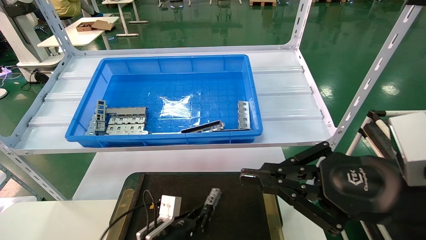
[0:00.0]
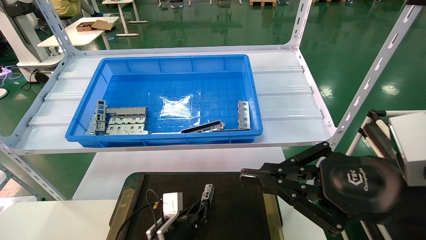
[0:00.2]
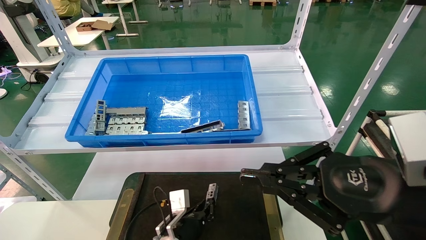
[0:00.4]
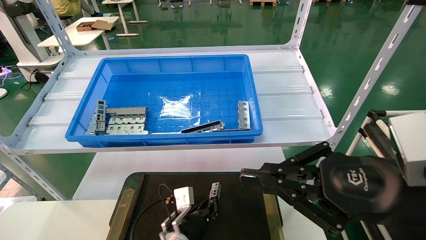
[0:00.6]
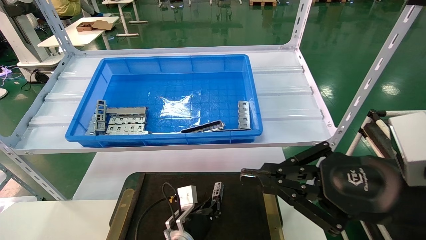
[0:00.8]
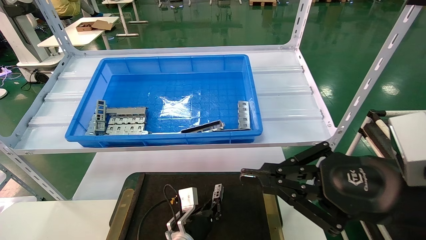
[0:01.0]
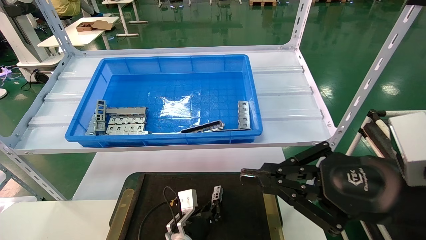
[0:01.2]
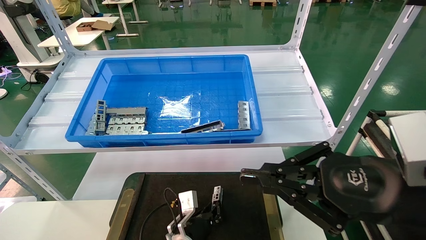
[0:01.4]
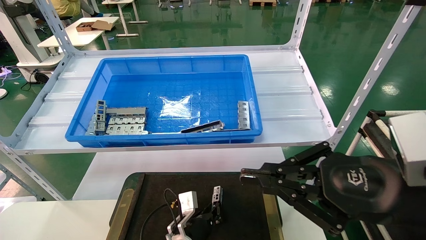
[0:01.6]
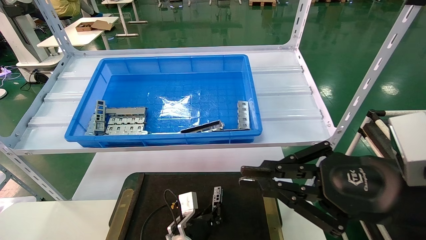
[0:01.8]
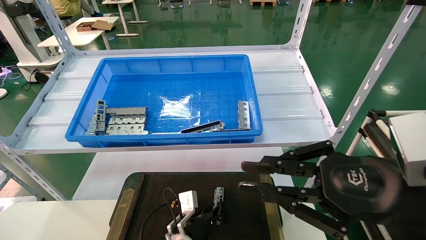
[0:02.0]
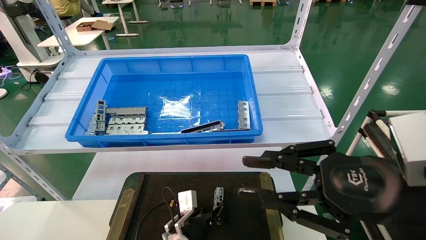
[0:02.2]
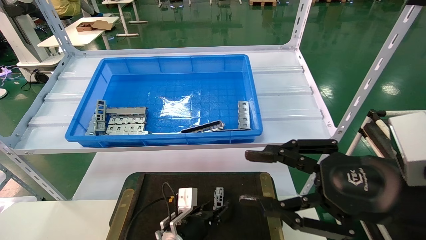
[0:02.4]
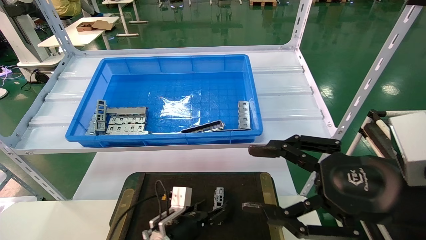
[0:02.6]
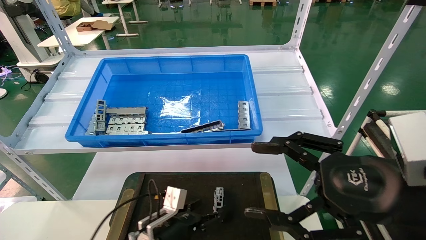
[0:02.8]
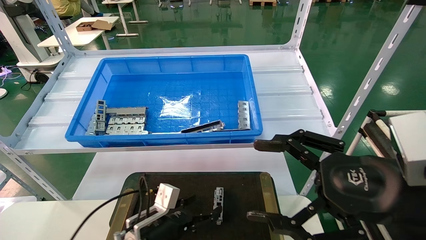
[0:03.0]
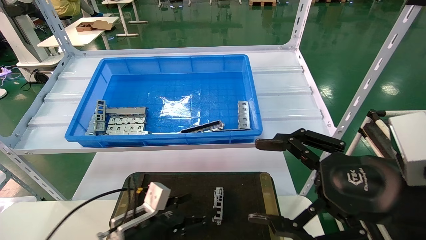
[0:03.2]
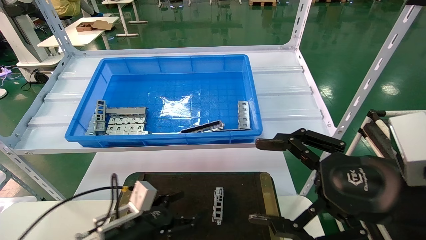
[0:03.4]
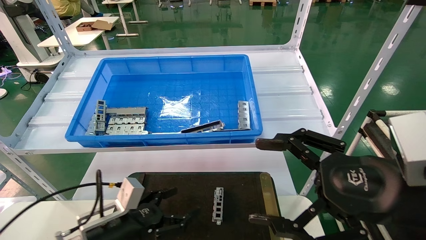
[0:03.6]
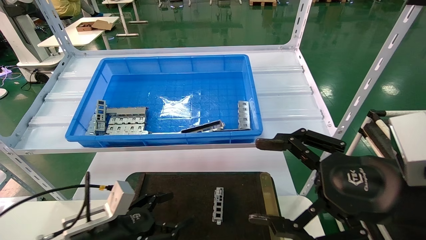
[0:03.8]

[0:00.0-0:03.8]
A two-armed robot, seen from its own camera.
Task of the whole recording: Grasp the part with one hand and place it on the black container.
Step, 0:00.0 to 0:02.0: Place the front USB bracket into the box.
0:00.0 to 0:01.2: The left gripper is displaced to the right by some 5 cm.
0:01.2 to 0:02.6: The left gripper shifts by some 5 cm, and opens up, while the right gripper opens.
0:02.6 to 0:03.8: The right gripper opens, while the left gripper goes roughly 15 cm to the left, upward and backward, and opens its fingers.
